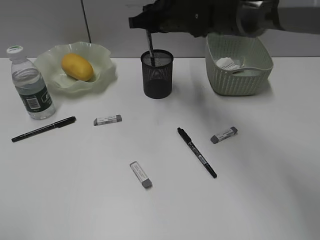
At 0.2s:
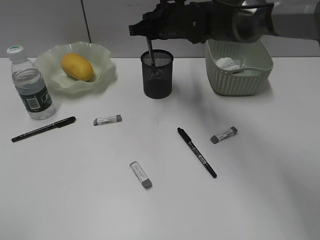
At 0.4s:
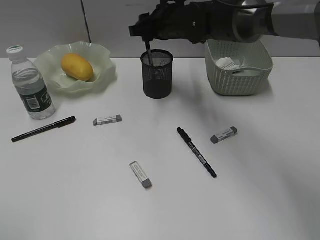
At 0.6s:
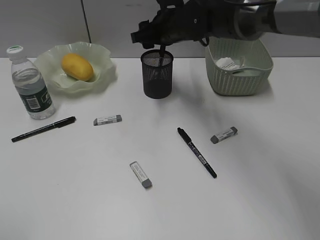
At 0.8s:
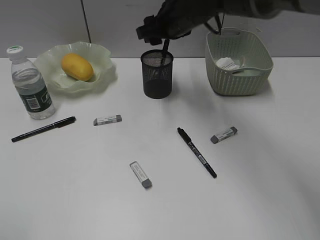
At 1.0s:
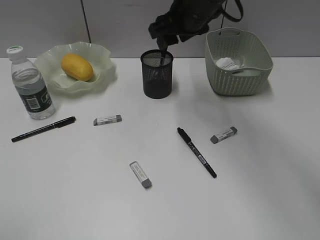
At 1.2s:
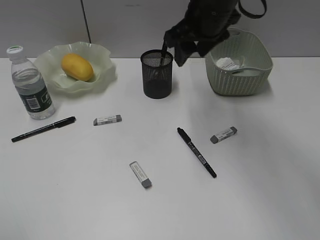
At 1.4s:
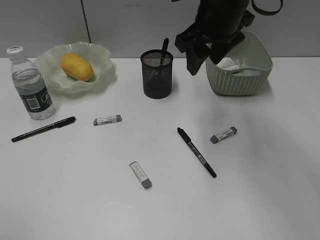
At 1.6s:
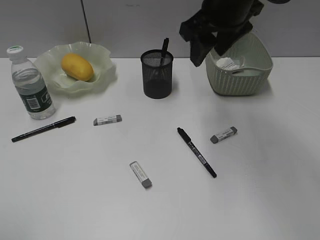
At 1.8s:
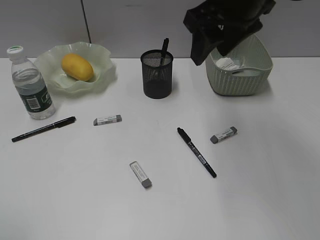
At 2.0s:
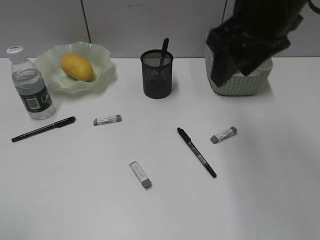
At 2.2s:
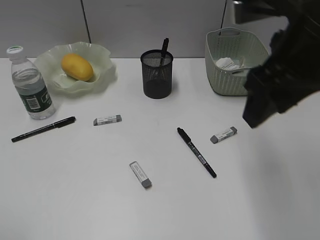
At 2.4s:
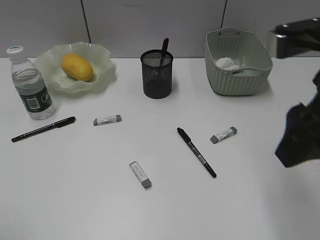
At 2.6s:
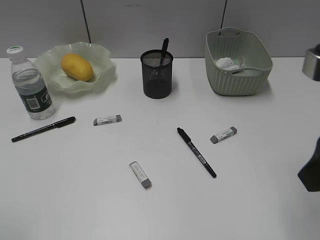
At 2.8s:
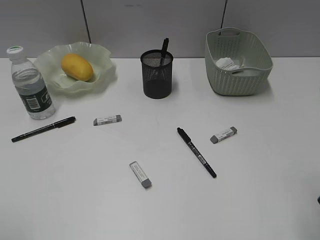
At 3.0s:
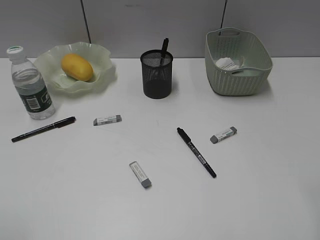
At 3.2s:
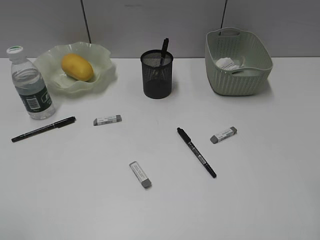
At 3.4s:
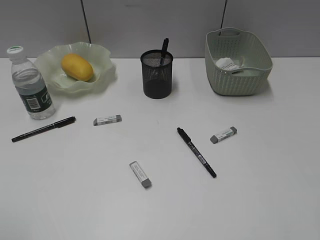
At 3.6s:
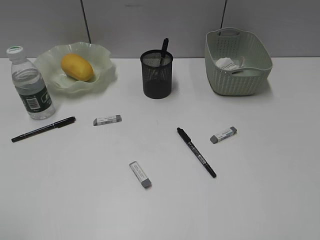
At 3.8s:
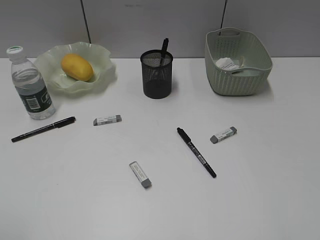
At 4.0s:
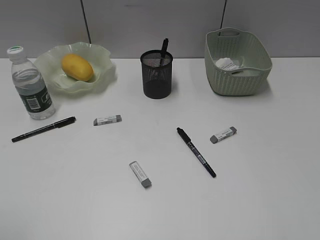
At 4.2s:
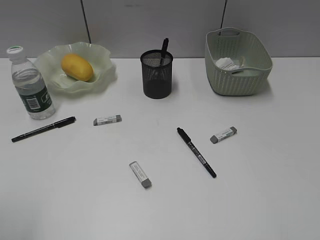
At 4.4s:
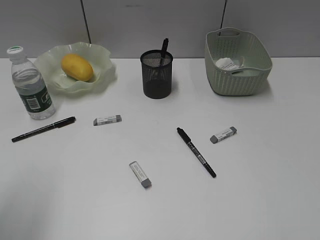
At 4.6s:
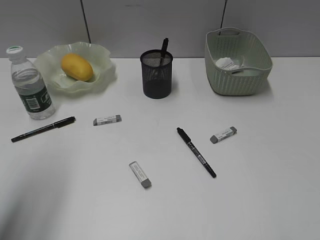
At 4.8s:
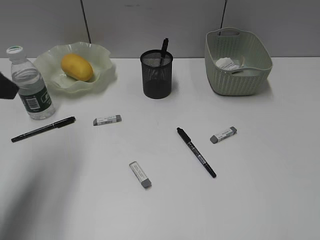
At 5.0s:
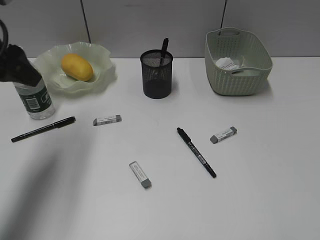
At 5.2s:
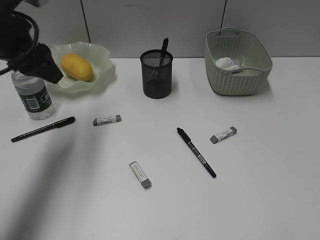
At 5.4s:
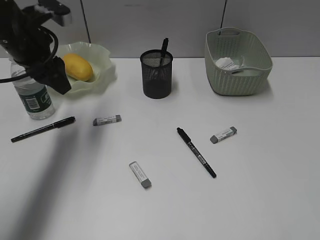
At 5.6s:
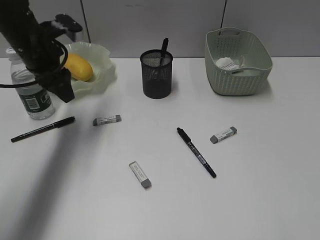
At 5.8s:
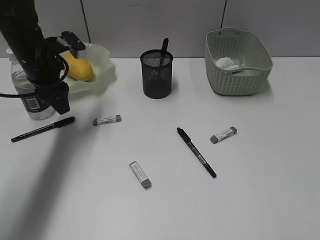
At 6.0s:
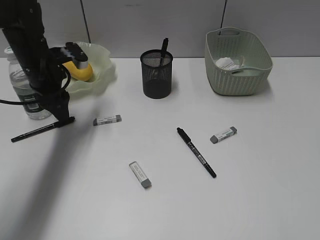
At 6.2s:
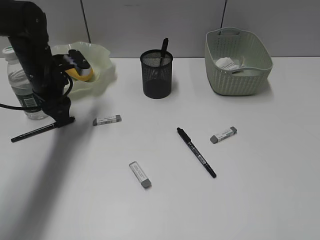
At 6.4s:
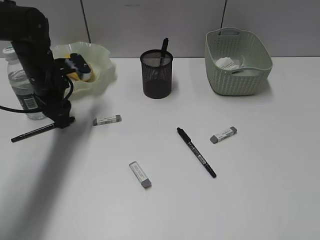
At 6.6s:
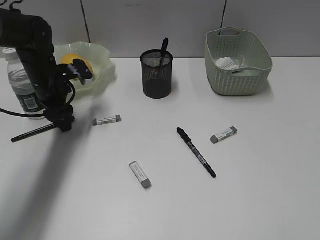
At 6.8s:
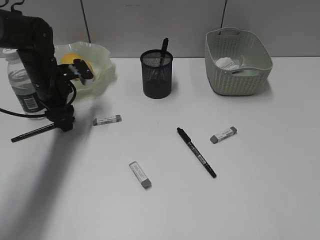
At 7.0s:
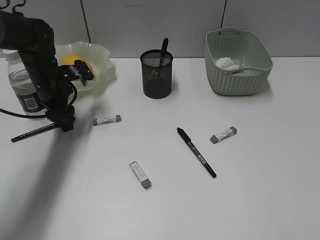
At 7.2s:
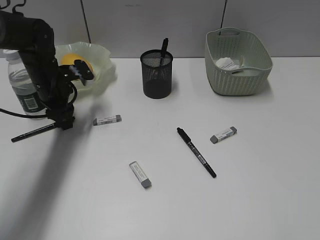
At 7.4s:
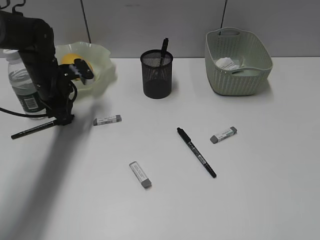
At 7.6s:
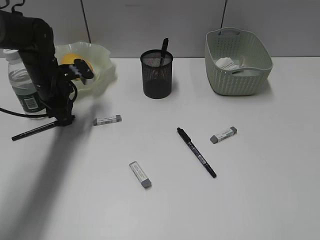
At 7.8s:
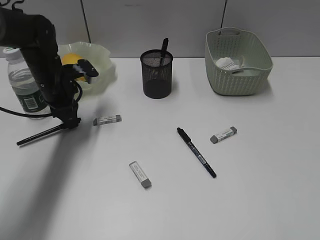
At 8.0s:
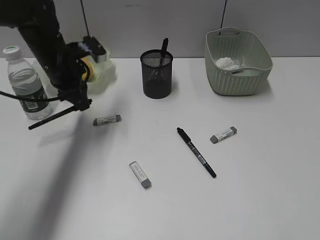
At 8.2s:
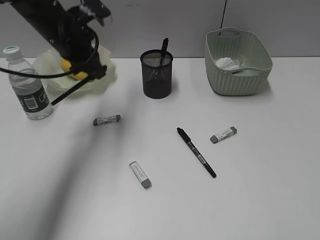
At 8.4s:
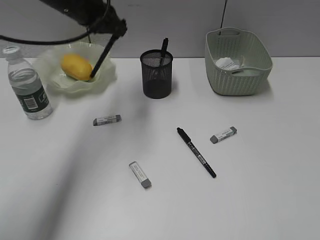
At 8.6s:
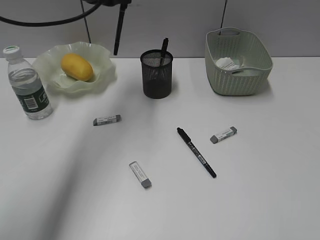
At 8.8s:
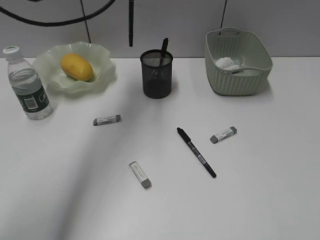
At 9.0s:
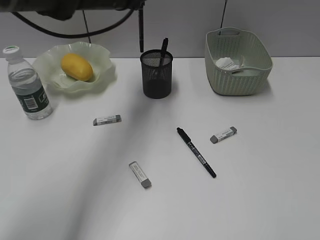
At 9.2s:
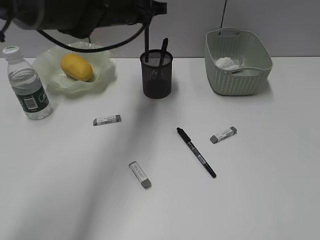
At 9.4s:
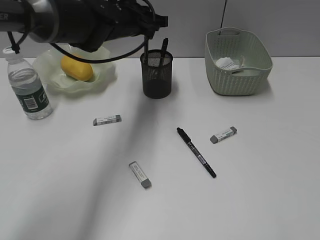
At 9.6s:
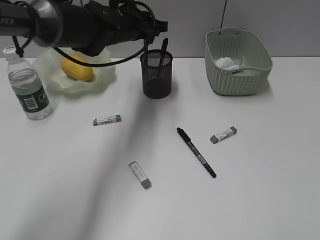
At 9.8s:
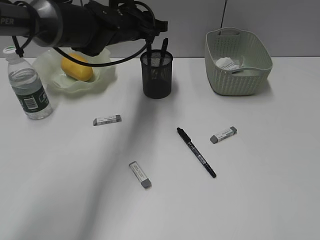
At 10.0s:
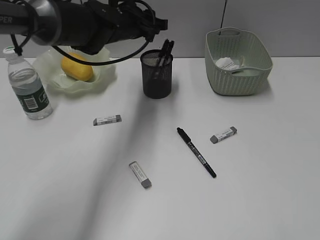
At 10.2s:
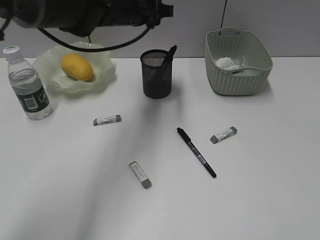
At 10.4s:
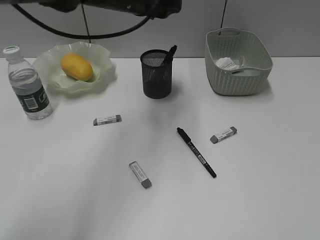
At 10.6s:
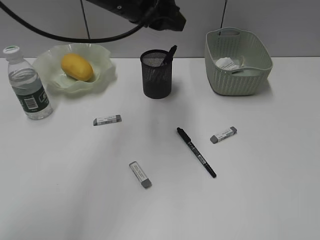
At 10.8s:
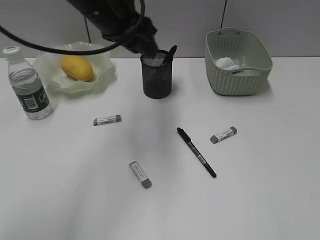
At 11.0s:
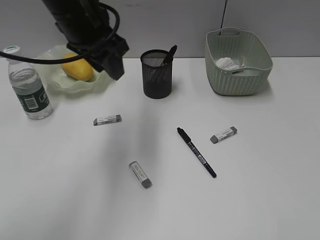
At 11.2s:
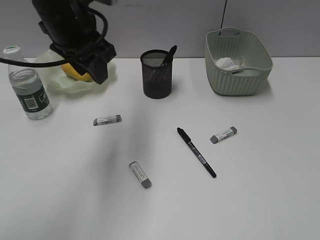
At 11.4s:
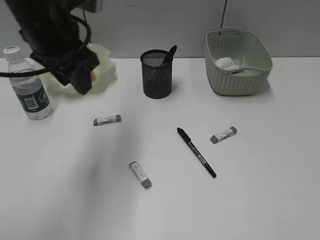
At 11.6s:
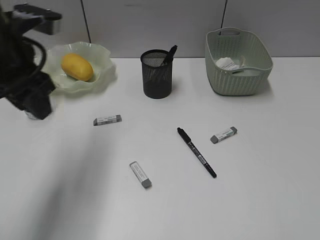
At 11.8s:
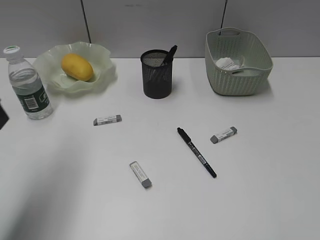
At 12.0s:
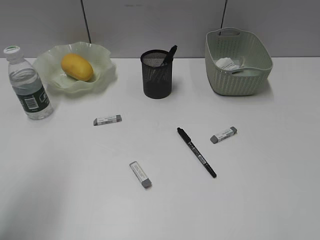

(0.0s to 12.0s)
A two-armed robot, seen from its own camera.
Step, 1.0s - 7.6s: Grasp the black pen with left gripper.
Step, 7.8s - 10.0s: Place the black pen in pen holder with left gripper.
0.0s - 1.6s: The right gripper moves backward, upward and to the right, roughly 15 cm, and opens its fingers.
1.6s - 3.0s: The right gripper moves backward and to the right, roughly 30 cm.
3.0s - 4.4s: The left gripper heads forward, covering approximately 10 cm.
4.4s - 6.0s: The left gripper is displaced forward and downward by some 30 cm.
6.0s - 7.6s: The left gripper closes up.
7.6s - 9.0s: The left gripper goes roughly 20 cm upward and to the right.
9.0s - 10.4s: The left gripper goes downward and returns, approximately 5 cm each way, and opens its fingers.
10.4s - 12.0s: The left gripper goes about 35 cm backward and to the left.

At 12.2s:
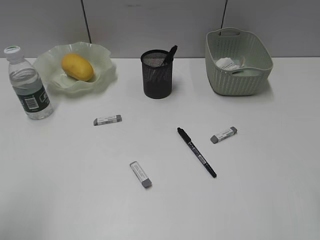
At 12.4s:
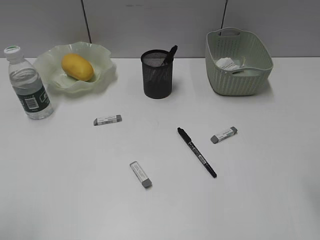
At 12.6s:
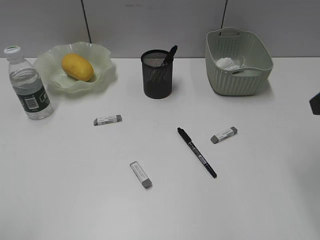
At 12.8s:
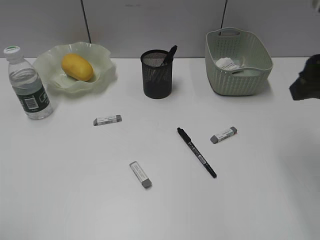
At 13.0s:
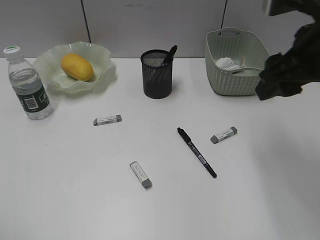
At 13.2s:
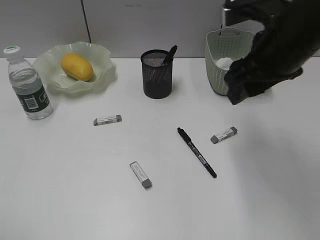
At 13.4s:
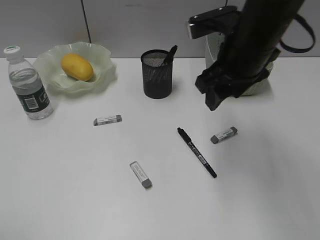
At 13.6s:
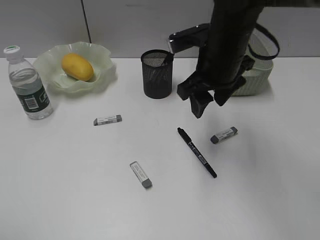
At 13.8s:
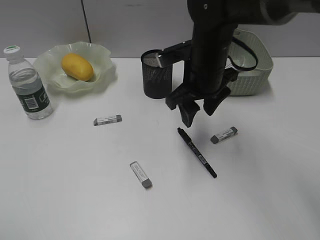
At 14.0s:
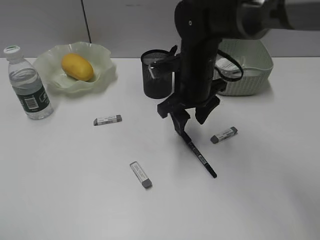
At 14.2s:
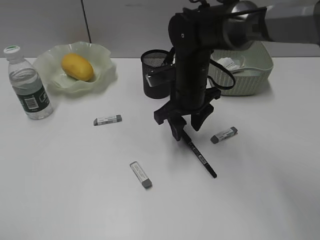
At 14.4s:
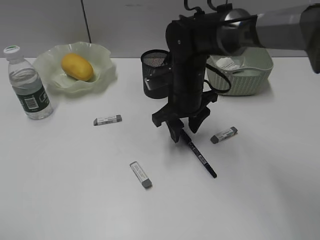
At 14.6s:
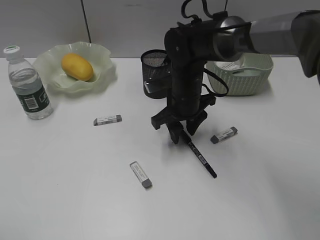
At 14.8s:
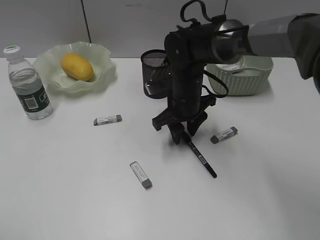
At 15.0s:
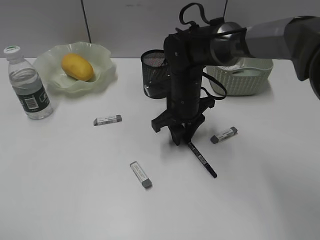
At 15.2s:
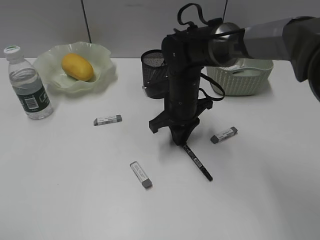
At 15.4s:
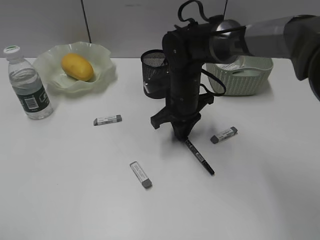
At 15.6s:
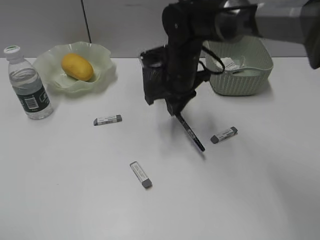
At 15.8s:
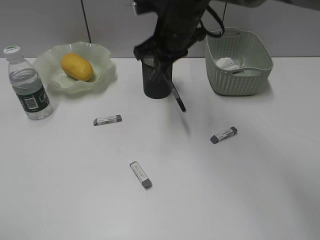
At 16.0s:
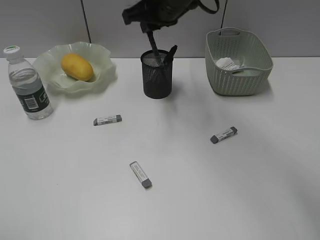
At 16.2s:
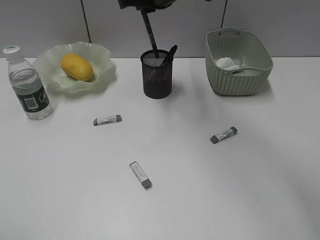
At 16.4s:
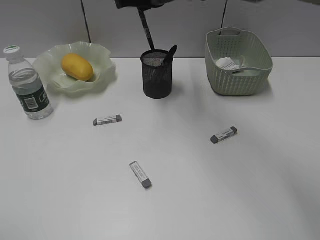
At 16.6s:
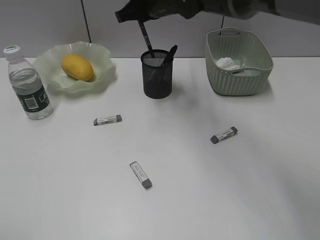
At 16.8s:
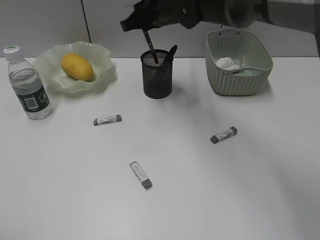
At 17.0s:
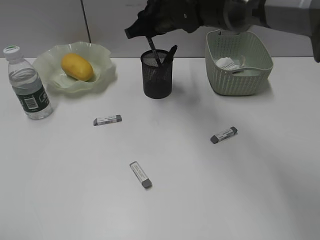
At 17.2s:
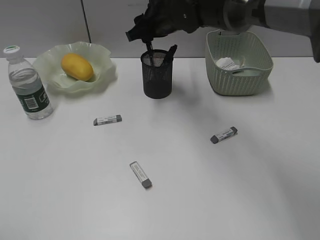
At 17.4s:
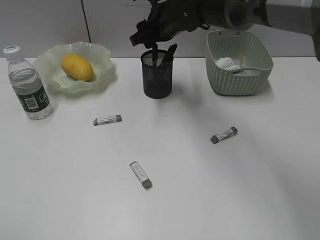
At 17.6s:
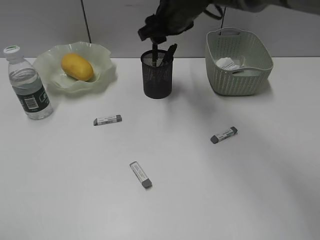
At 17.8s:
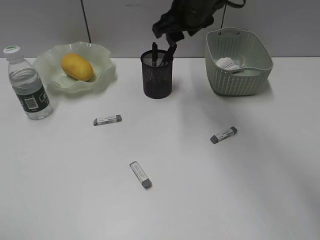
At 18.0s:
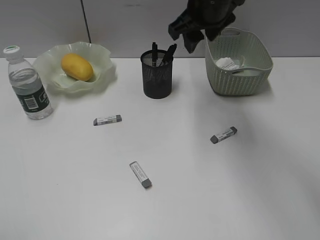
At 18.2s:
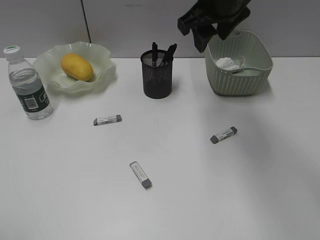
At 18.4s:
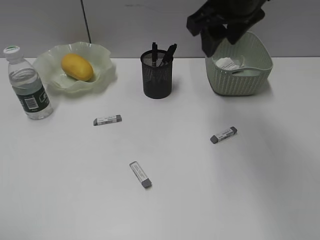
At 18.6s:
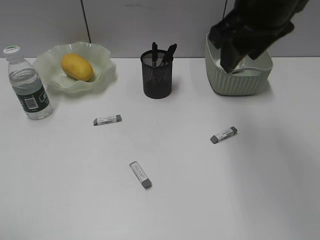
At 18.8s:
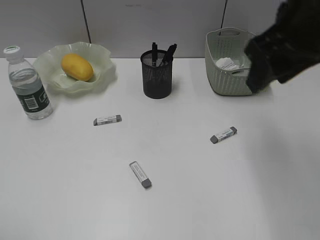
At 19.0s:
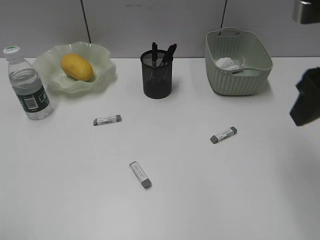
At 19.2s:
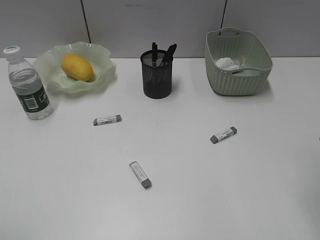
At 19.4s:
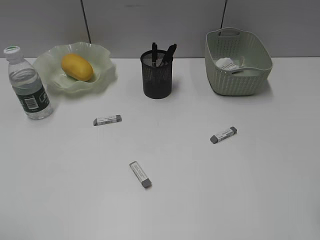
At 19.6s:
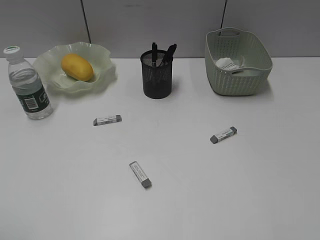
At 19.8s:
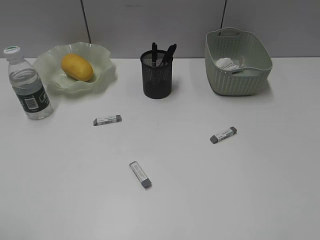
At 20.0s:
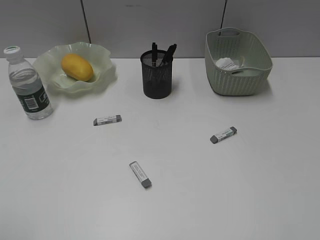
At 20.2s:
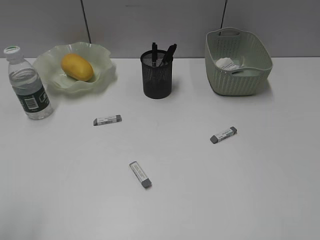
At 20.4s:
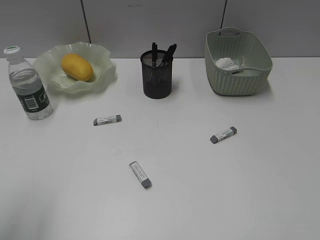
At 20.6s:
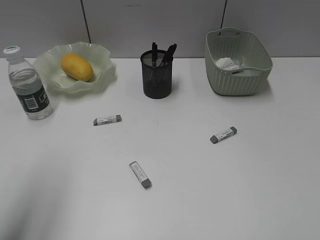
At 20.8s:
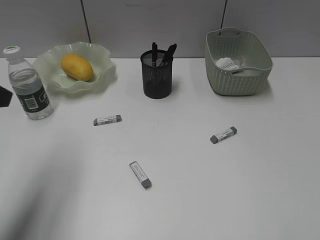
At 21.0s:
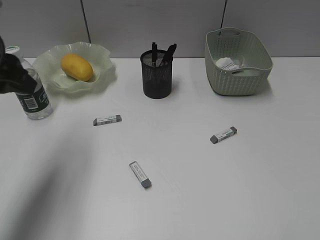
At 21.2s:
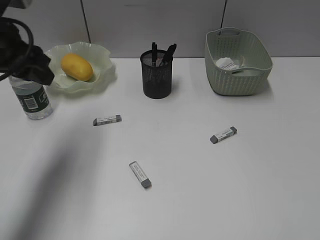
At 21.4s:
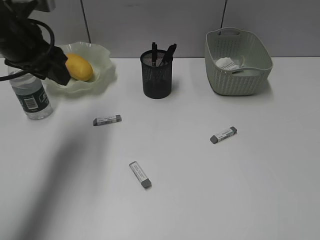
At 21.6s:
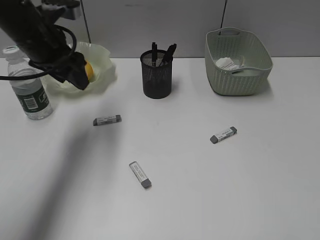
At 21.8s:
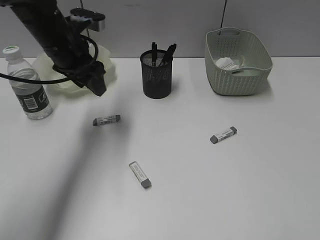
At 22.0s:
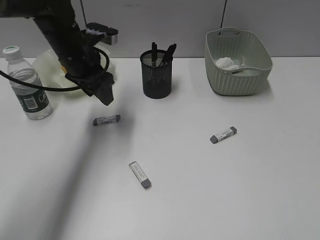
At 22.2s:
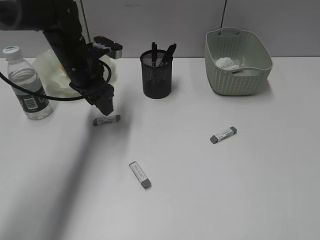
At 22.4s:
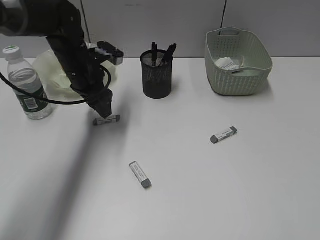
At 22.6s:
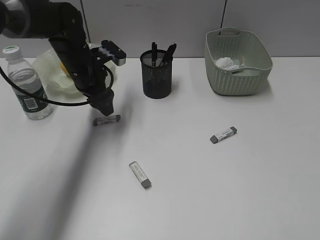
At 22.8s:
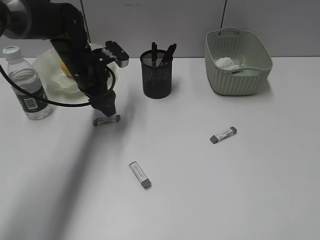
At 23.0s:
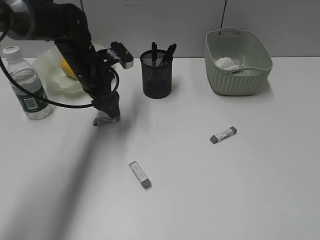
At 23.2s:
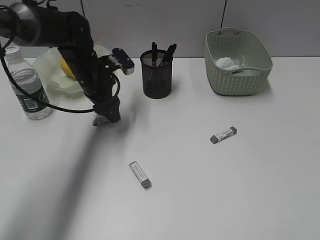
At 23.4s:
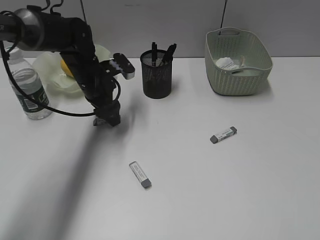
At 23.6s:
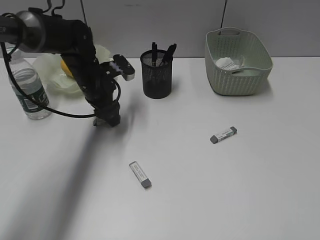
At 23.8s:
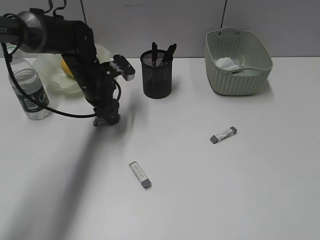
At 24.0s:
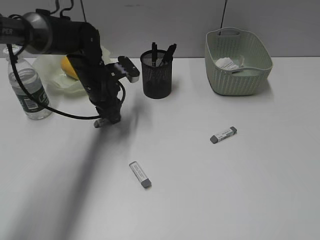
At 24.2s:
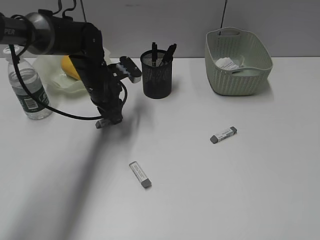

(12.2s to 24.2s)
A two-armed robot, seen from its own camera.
Step, 12.2s - 15.2s: Grasp the black pen with right gripper.
Step, 15.4s - 17.2s: Place the black pen in pen holder with right gripper.
12.2s - 13.8s: The left gripper shifts some 5 cm backward; the right gripper heads forward, to the left and downward, covering some 35 cm.
13.8s - 15.2s: The right gripper heads downward, covering approximately 10 cm, and closes its fingers.
15.2s - 16.6s: The right gripper moves upward and forward, roughly 15 cm.
16.6s - 18.2s: The right gripper shifts some 15 cm to the right, backward and upward, and opens.
18.2s - 19.8s: The right gripper heads backward and to the right, covering some 40 cm.
19.8s - 21.2s: The left gripper is displaced forward by approximately 30 cm.
21.2s - 22.6s: The left gripper heads downward, forward and to the right, covering some 20 cm.
22.6s - 24.2s: The left gripper closes its fingers.
